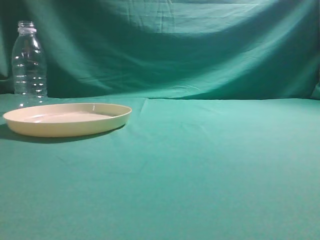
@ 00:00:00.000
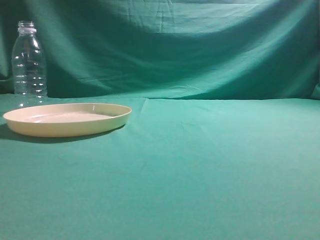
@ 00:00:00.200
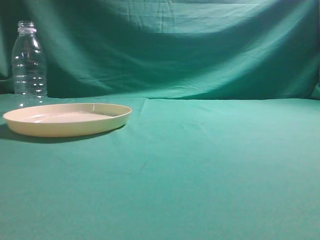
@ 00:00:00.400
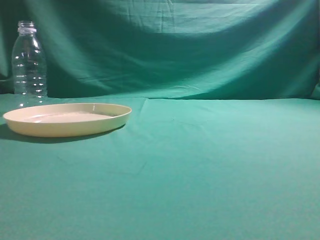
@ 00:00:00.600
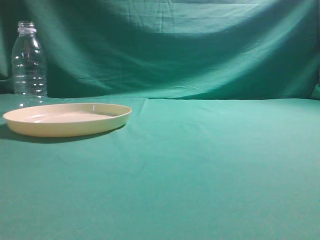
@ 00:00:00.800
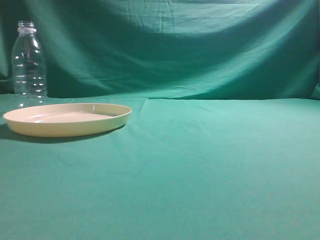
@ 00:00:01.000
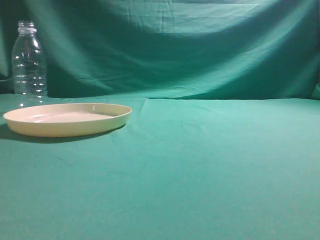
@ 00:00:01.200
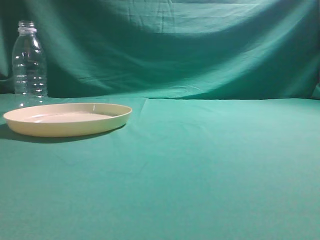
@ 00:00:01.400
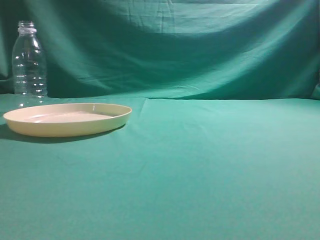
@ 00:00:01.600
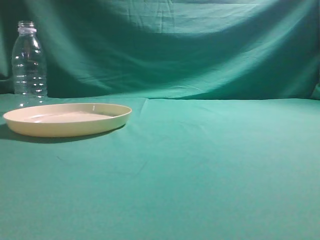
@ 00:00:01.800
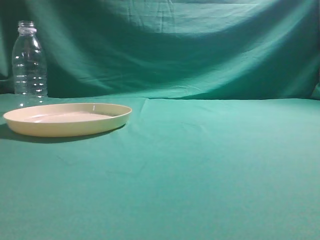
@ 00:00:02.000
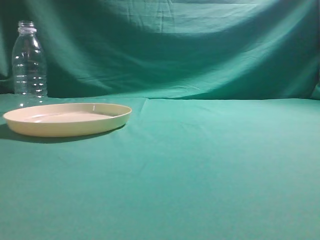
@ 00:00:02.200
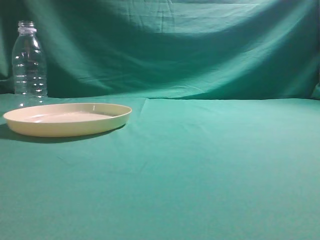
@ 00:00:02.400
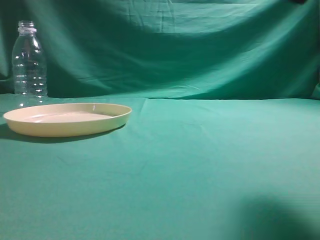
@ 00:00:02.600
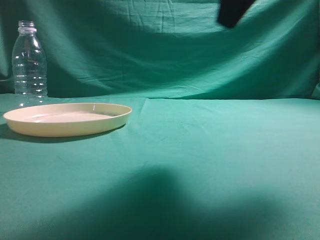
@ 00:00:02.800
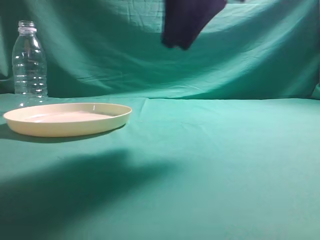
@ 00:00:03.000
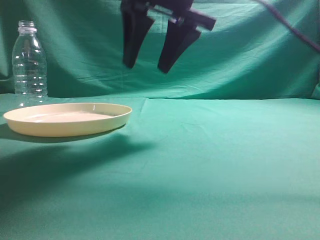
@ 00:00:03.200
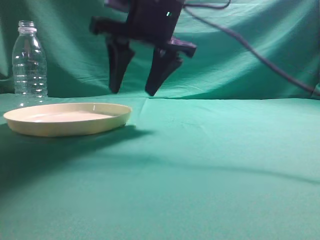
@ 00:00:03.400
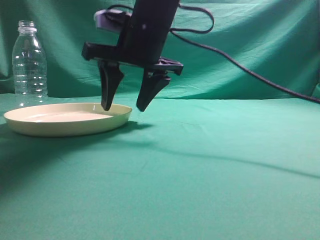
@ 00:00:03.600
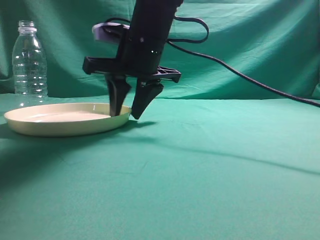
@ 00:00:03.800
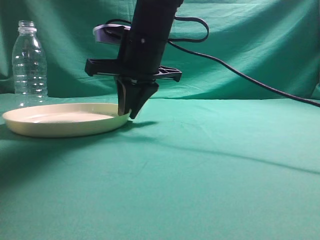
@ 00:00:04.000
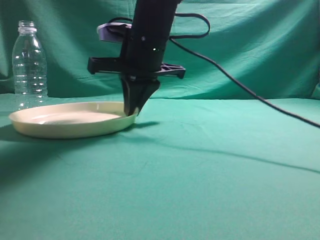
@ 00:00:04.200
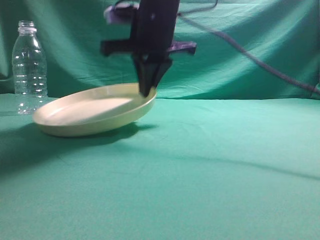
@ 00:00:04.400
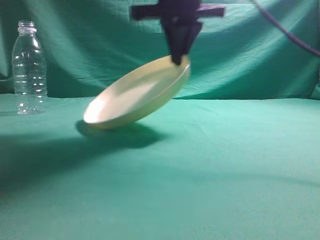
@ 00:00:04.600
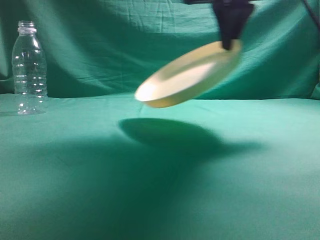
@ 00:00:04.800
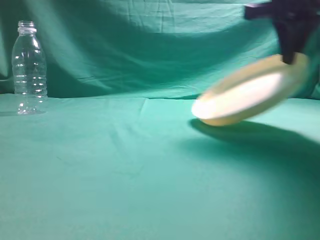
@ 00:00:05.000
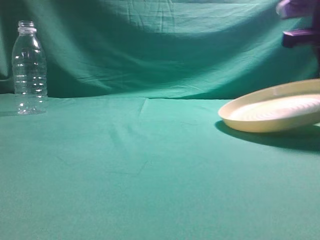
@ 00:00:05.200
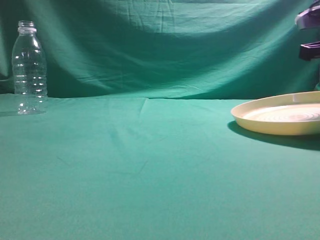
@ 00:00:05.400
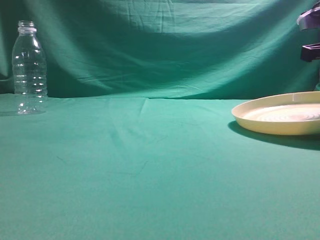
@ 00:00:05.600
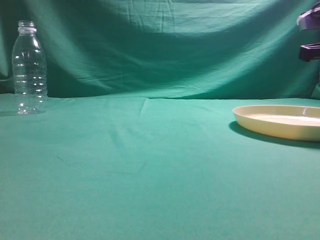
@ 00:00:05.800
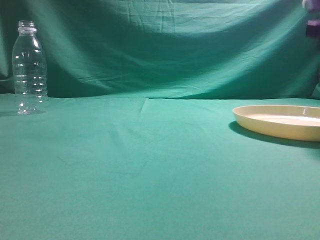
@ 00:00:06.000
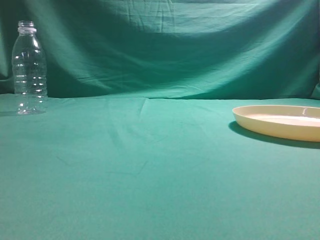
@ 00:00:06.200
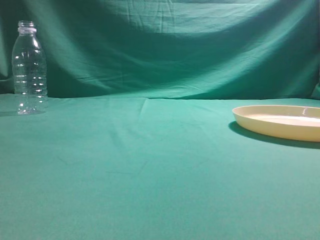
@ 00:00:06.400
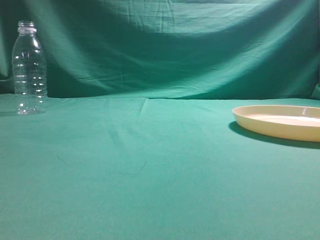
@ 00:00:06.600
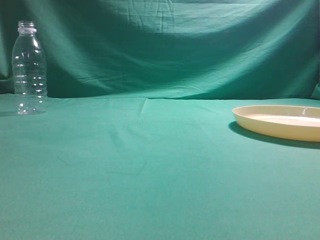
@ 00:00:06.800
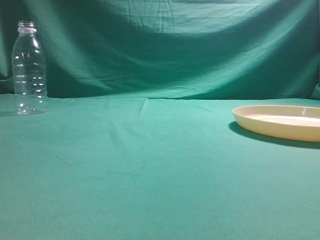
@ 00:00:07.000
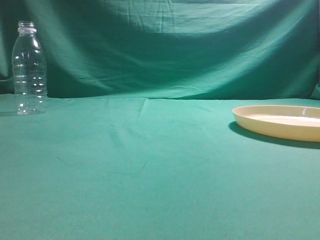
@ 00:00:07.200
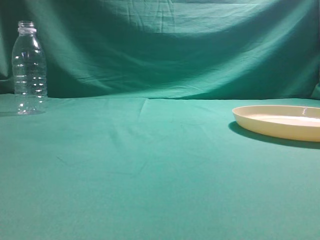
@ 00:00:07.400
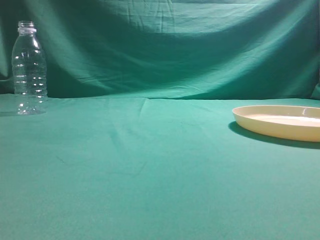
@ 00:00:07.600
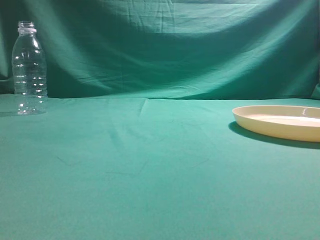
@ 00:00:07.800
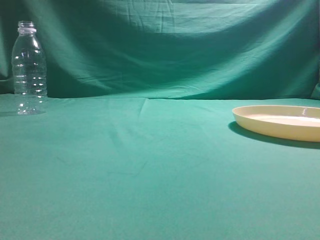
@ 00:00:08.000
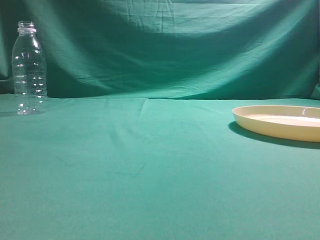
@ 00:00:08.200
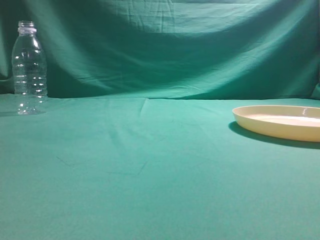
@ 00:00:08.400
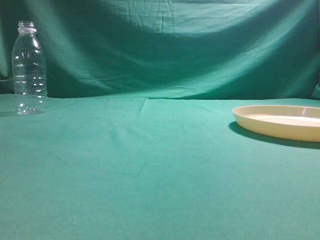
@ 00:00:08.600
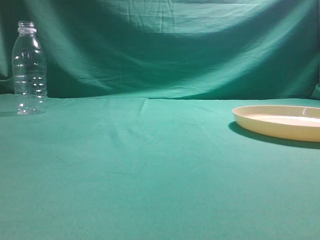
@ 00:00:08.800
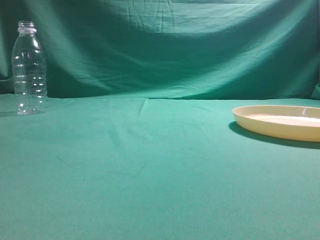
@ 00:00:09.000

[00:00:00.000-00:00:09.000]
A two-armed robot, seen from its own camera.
Step, 00:00:00.000 to 00:00:04.600: Pick the container that can hold fruits.
Step, 00:00:04.800 to 00:00:06.600: Move the picked object to the right side of the table.
00:00:01.600 to 00:00:03.000: The right gripper is displaced forward and to the left by about 30 cm.
00:00:03.000 to 00:00:04.400: The right gripper is displaced forward, to the left and downward by about 20 cm, and opens and closes again.
00:00:04.400 to 00:00:06.000: The right gripper shifts about 30 cm to the right, and opens up.
00:00:06.000 to 00:00:07.600: The right gripper heads backward and upward, covering about 35 cm, and closes up.
